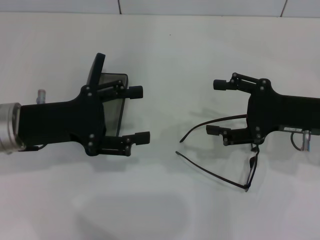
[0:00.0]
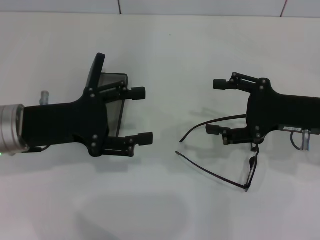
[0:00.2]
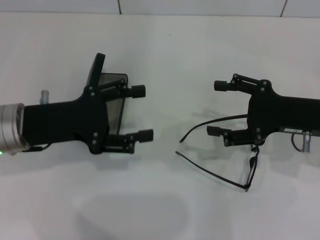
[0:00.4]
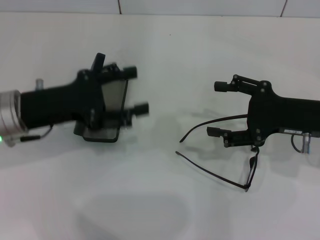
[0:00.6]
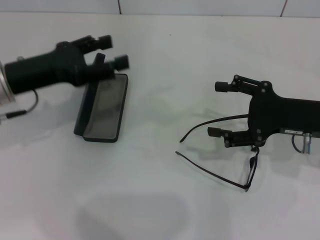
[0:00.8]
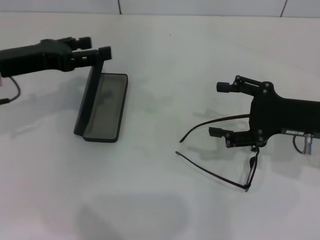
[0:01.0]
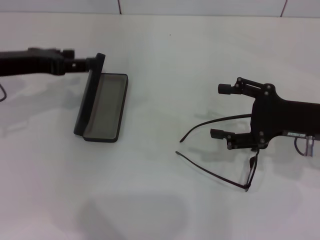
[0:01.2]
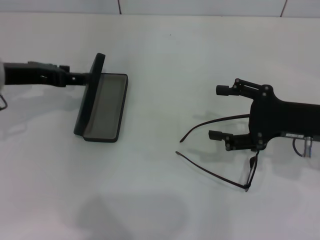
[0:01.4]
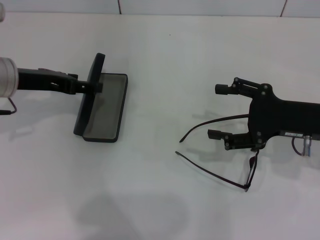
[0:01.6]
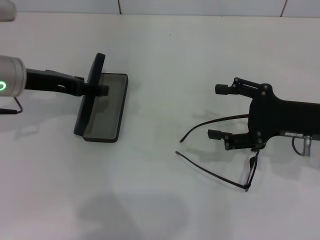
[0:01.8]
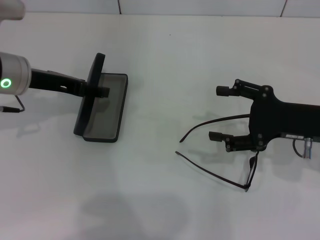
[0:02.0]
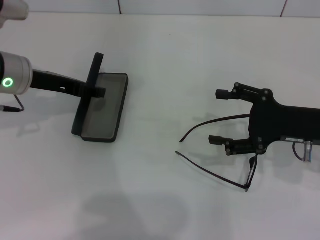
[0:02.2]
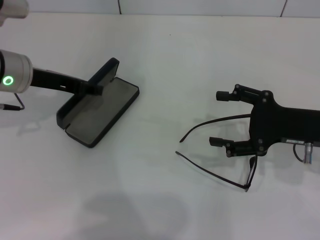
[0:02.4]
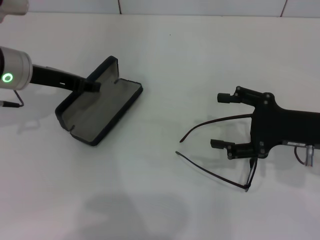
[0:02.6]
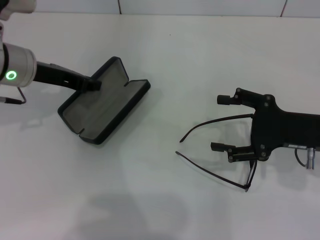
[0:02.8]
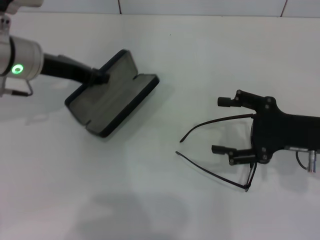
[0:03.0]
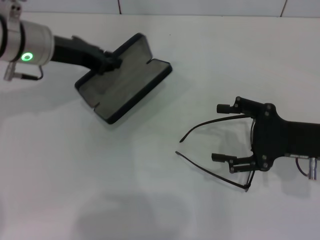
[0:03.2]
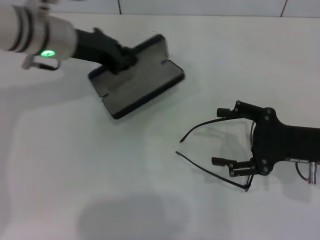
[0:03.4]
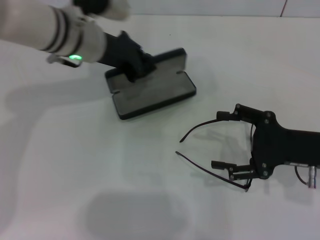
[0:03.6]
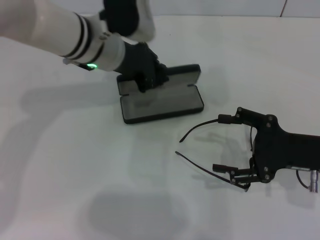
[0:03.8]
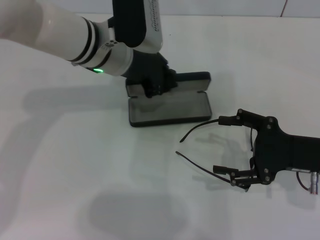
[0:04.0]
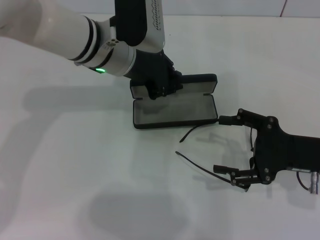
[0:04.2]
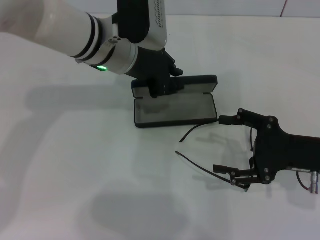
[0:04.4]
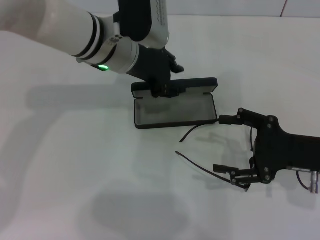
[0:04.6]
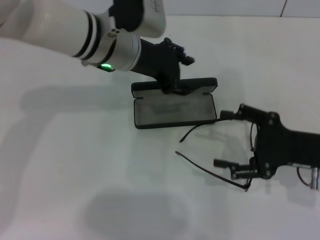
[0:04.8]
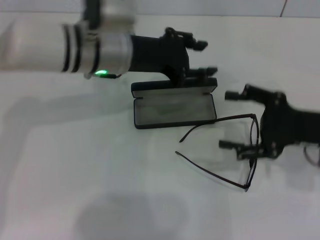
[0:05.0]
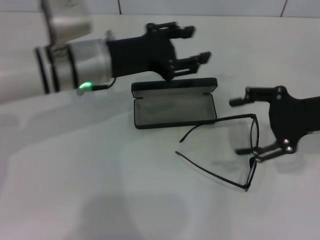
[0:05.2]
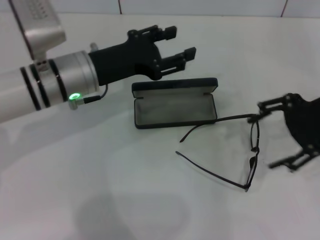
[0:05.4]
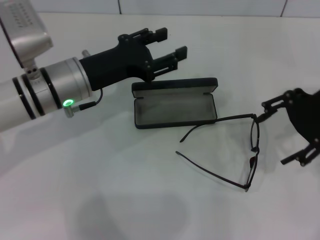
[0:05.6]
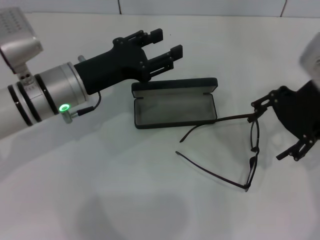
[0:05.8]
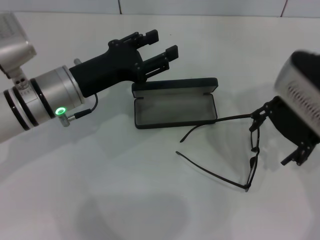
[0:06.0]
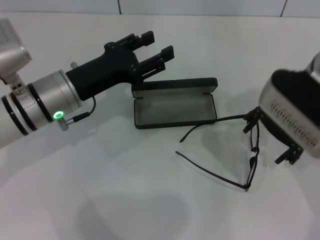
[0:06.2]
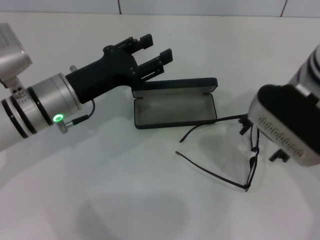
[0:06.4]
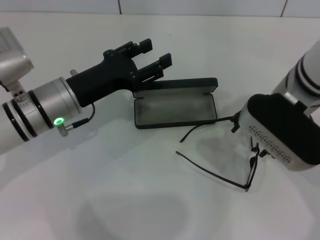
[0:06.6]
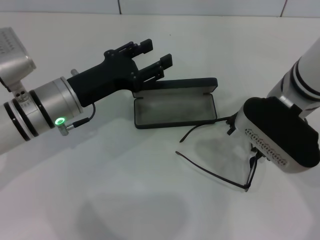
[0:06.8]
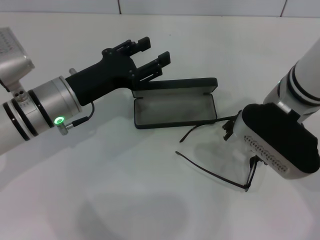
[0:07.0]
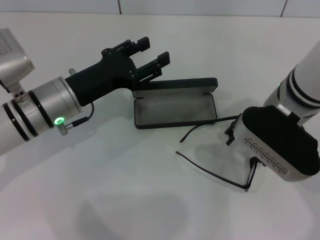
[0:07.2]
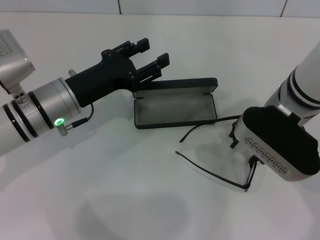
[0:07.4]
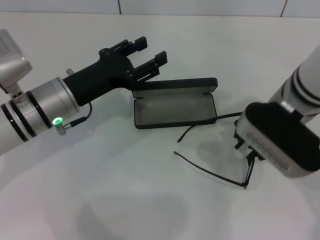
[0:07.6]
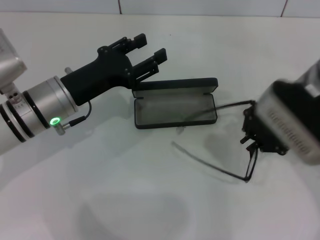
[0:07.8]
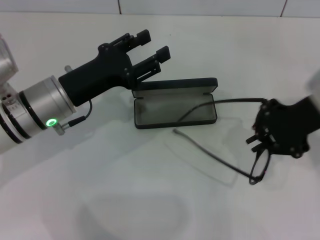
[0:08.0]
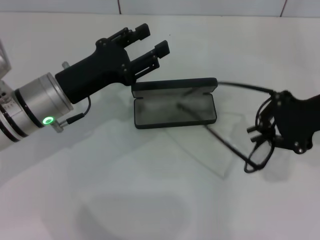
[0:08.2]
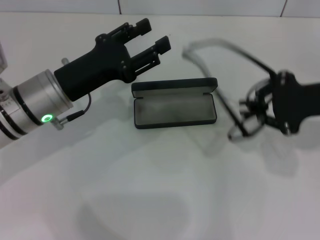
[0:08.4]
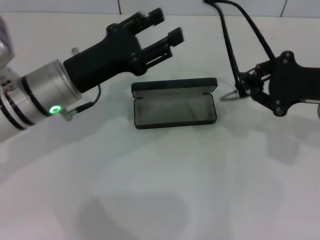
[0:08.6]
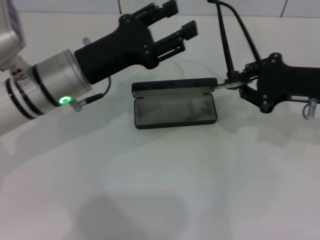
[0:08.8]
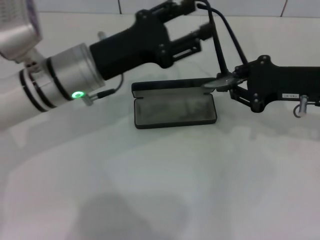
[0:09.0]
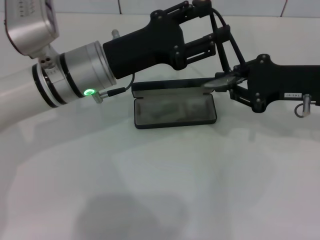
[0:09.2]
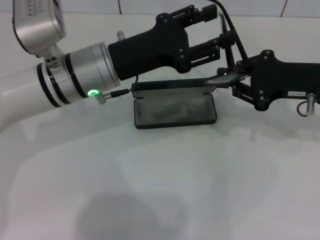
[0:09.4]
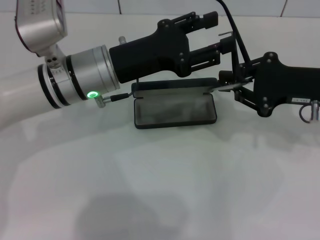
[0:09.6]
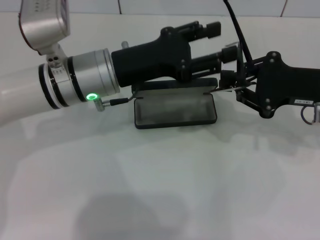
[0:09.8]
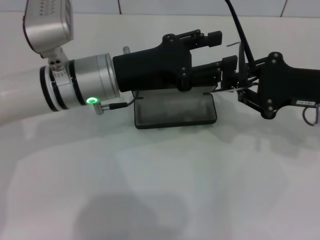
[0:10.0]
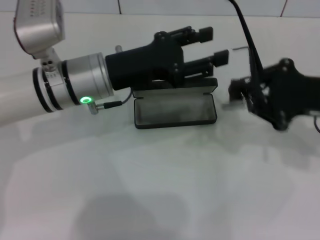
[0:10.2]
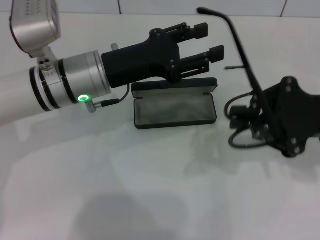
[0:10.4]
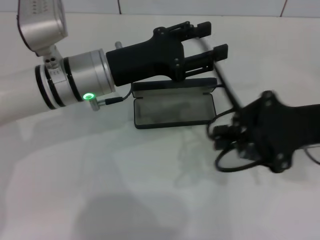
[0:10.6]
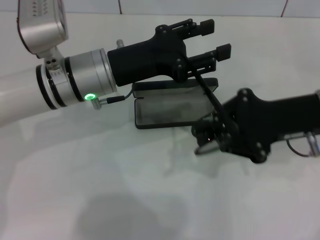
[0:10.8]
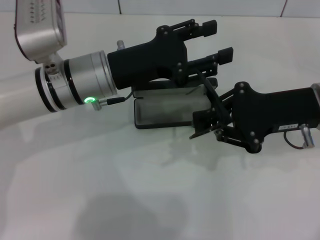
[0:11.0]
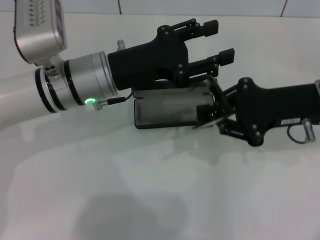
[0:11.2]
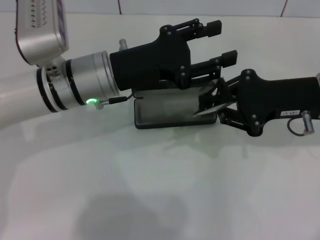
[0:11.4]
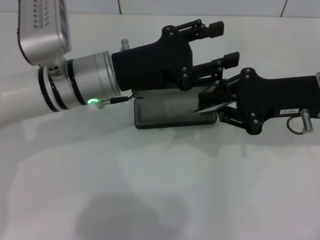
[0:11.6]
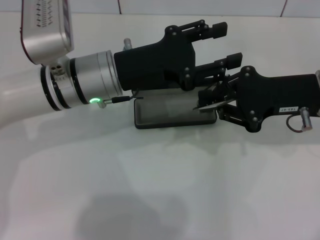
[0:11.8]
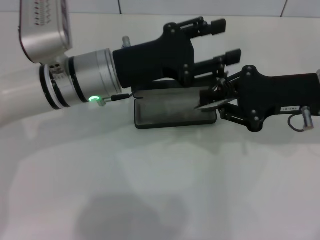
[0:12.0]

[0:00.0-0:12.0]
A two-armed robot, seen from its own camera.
Step, 0:00.0 to 0:01.8: Grab the glasses case with your left hand.
Step, 0:02.0 to 0:04.4: Place the glasses case in the center of the table with your left hand.
Step, 0:04.6 to 0:07.4: Grab the eyeglass frame with your right hand.
Step, 0:07.8 to 0:12.0: Fold the frame with your left hand.
0:00.0 to 0:01.6: The left gripper is displaced forward by roughly 10 cm.
0:01.6 to 0:03.0: The left gripper closes up.
0:03.0 to 0:04.4: The left gripper moves to the right, about 10 cm.
0:04.4 to 0:06.0: The right gripper heads upward, to the left and forward, covering approximately 15 cm; the left gripper shifts approximately 10 cm to the left, backward and downward, and opens up.
0:06.0 to 0:07.6: The right gripper goes about 5 cm downward, and closes its fingers.
0:07.6 to 0:09.0: The right gripper heads to the right, covering approximately 10 cm, and closes its fingers. Meanwhile the left gripper shifts by roughly 5 cm.
0:09.0 to 0:10.4: The right gripper moves backward, about 5 cm.
0:10.4 to 0:12.0: The right gripper ends up about 5 cm from where it was.

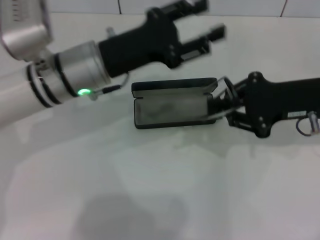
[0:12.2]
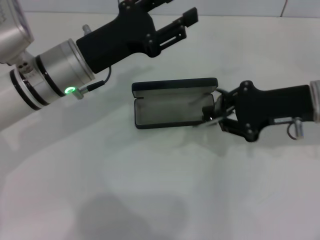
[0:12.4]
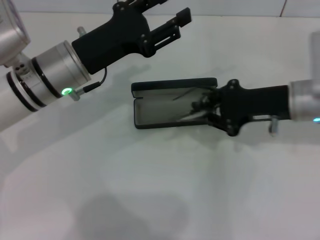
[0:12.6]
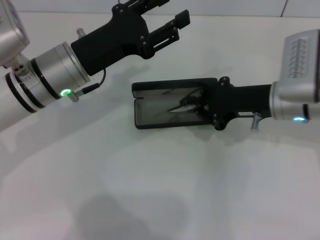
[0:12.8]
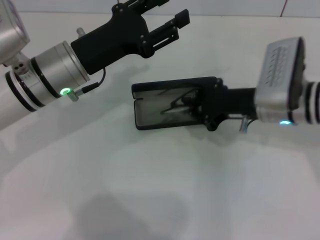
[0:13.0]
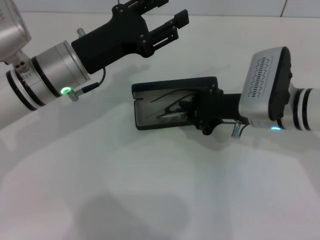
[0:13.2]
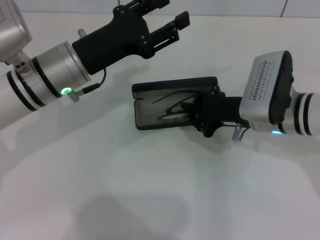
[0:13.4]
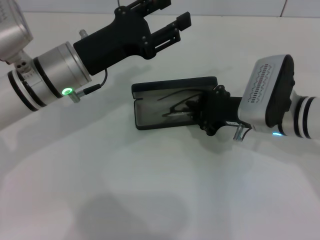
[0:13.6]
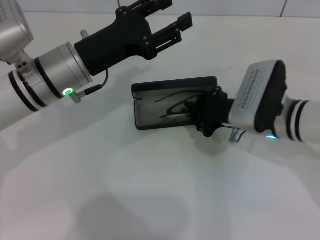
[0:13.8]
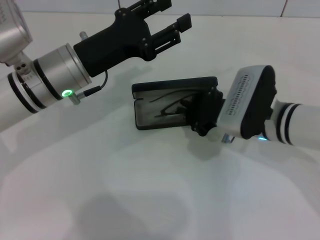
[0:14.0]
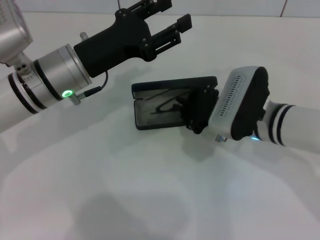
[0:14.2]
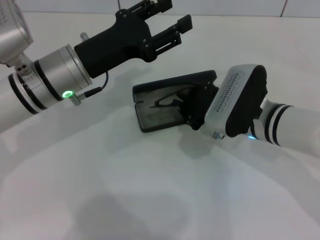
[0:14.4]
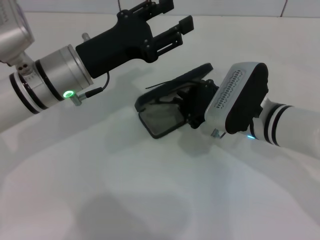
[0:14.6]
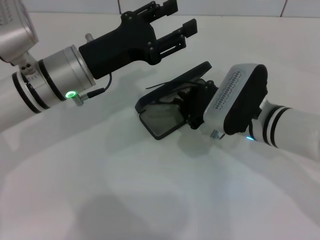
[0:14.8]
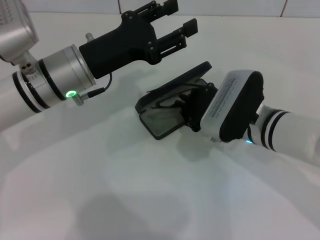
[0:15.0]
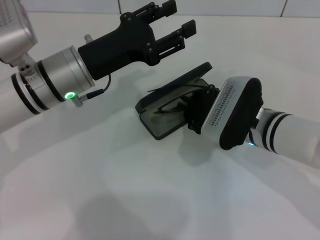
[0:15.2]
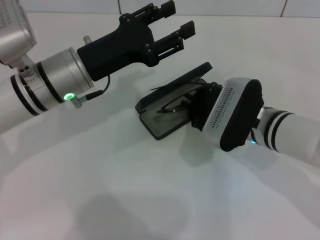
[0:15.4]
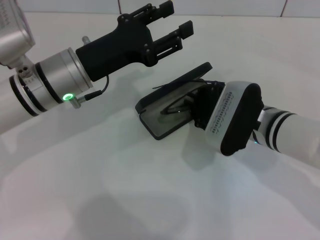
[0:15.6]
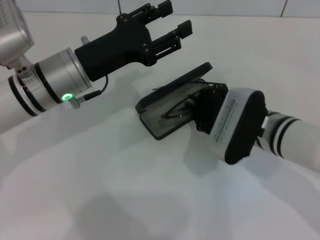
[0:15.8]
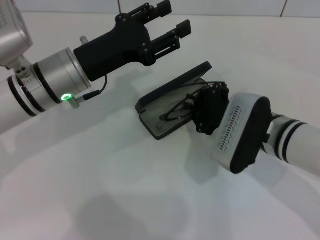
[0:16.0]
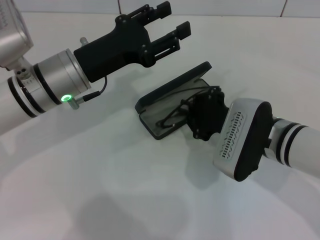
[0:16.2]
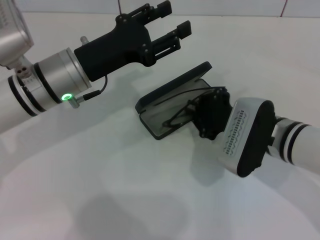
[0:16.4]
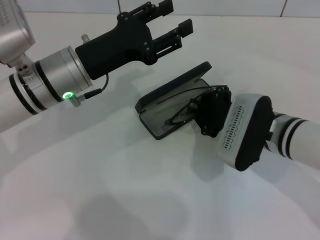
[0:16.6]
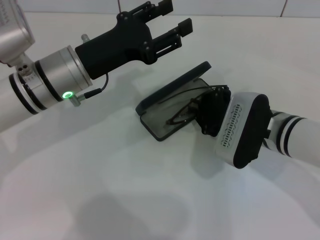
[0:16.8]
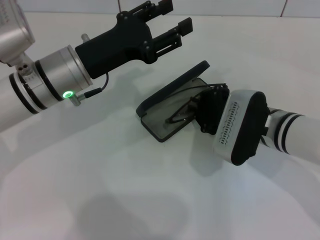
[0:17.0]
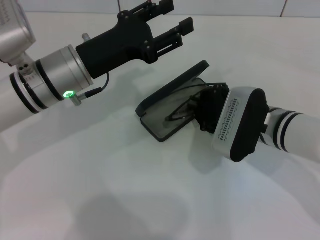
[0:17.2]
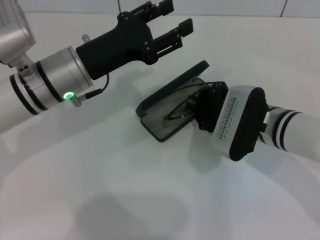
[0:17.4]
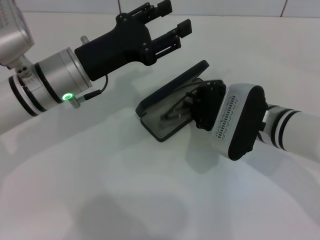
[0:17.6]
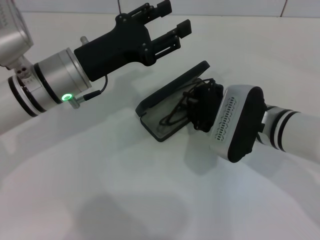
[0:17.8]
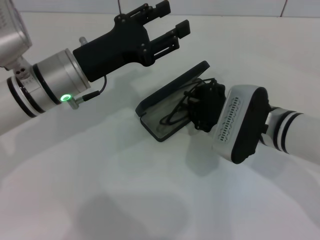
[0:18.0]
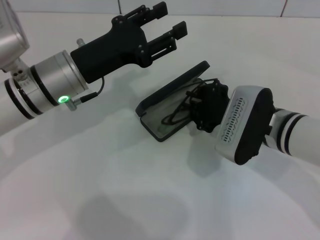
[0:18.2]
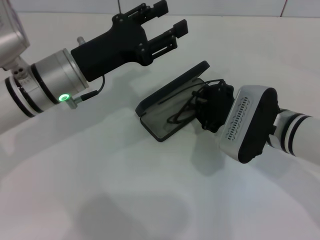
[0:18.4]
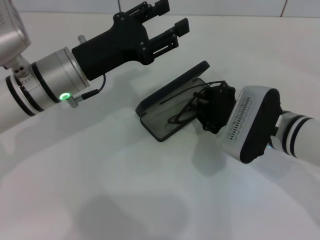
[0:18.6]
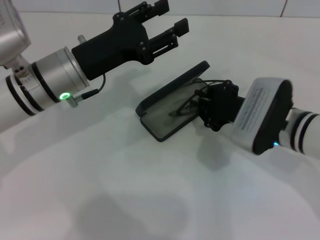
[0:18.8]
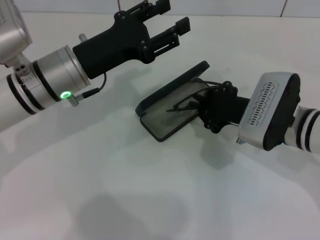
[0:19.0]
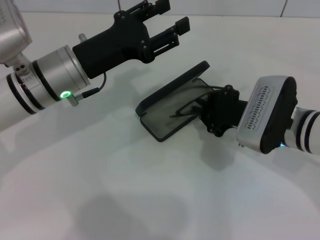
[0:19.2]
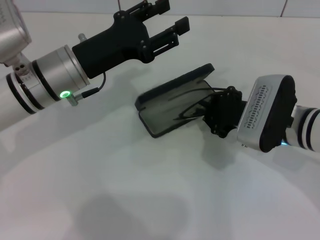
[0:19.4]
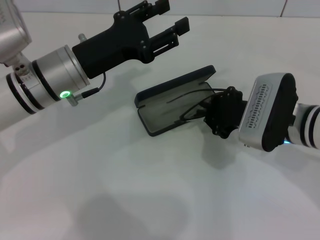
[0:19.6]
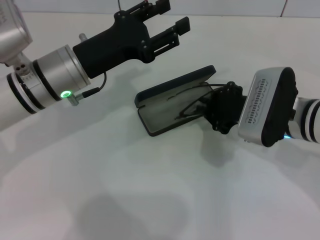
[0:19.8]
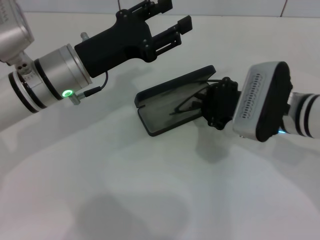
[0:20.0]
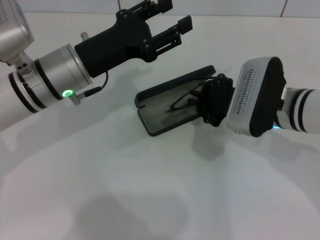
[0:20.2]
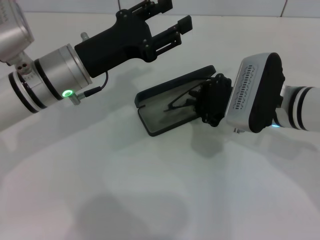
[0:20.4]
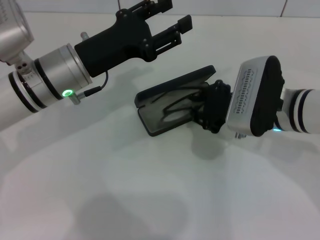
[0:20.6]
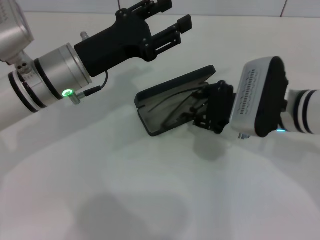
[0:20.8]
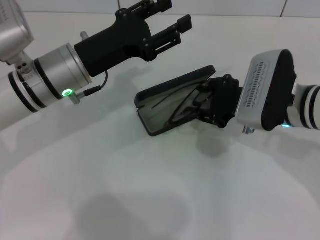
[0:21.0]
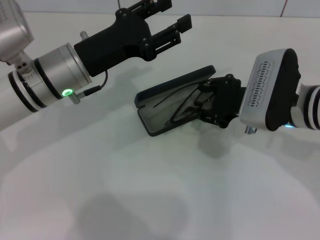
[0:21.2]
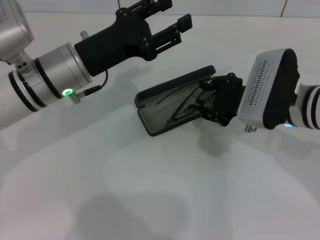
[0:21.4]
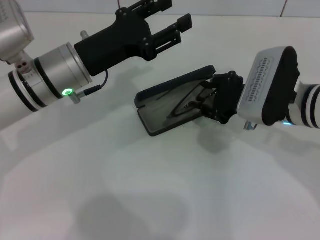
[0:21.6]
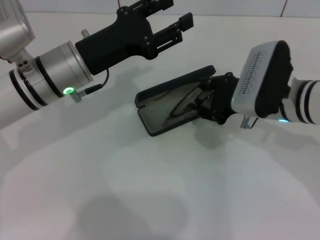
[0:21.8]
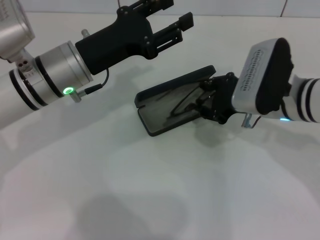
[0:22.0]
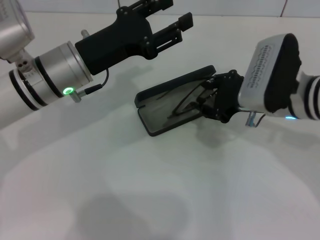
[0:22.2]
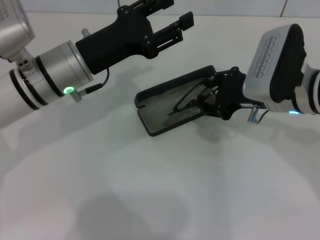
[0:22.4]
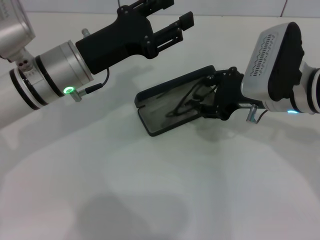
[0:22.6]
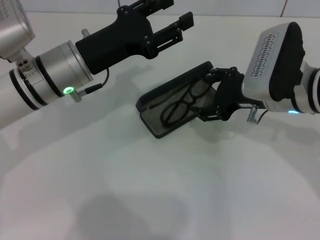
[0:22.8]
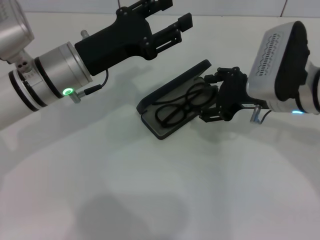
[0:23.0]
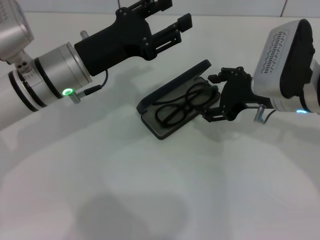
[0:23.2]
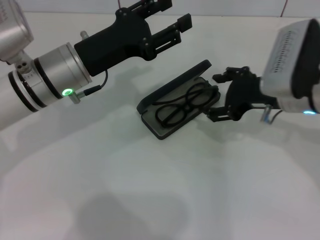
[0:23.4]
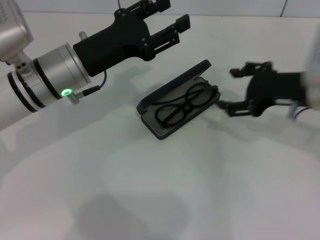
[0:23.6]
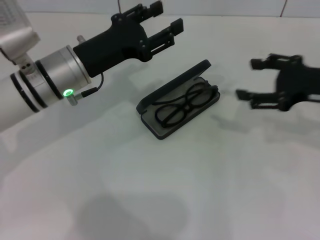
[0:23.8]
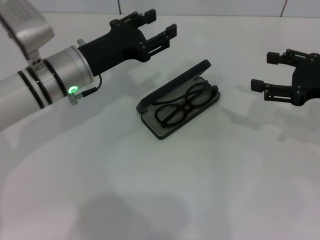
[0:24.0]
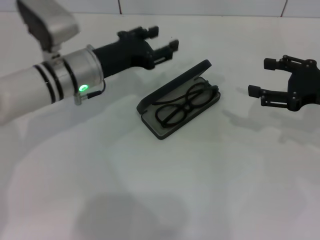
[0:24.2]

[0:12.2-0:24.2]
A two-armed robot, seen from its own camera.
Step, 0:12.2 to 0:22.8: Put the glasses into the case with your right hand.
0:12.2 to 0:13.8: The right gripper shifts about 10 cm to the left and downward.
0:13.8 to 0:15.2: The grippers move only a little.
0:15.2 to 0:19.8: The grippers make only small movements.
0:19.8 to 0:21.2: The right gripper opens its fingers.
0:21.2 to 0:22.6: The grippers make only small movements.
0:22.6 to 0:24.2: The right gripper goes approximately 15 cm to the right.
